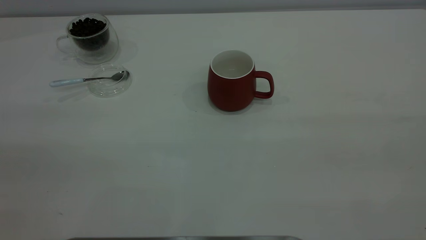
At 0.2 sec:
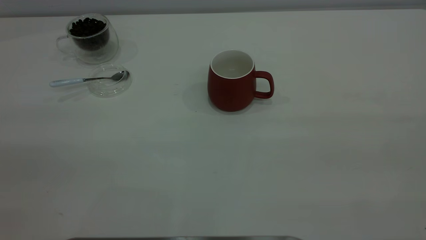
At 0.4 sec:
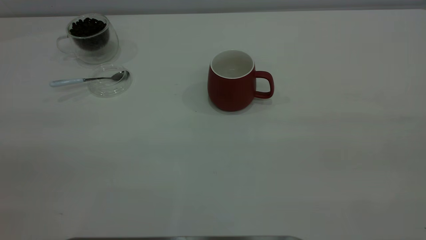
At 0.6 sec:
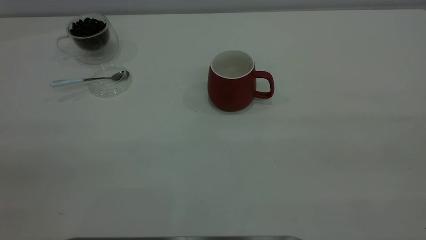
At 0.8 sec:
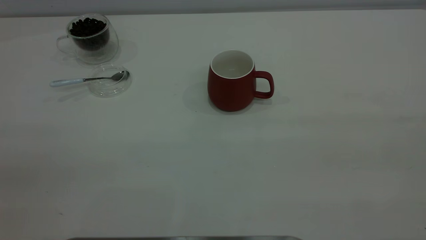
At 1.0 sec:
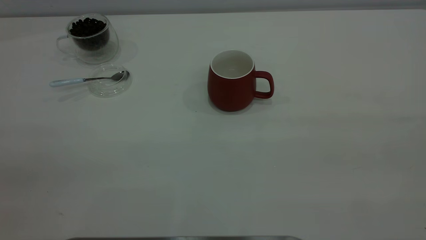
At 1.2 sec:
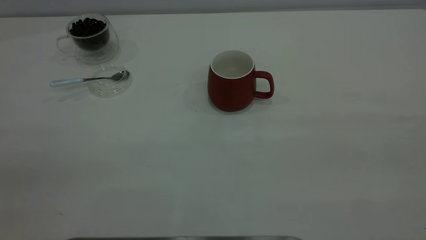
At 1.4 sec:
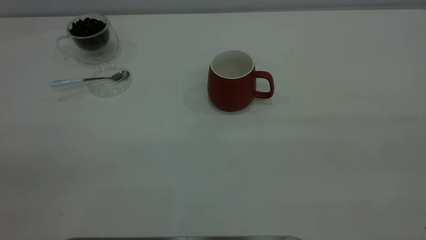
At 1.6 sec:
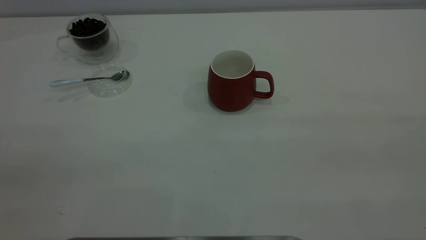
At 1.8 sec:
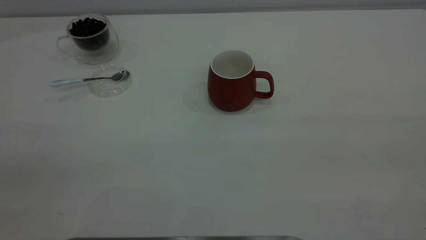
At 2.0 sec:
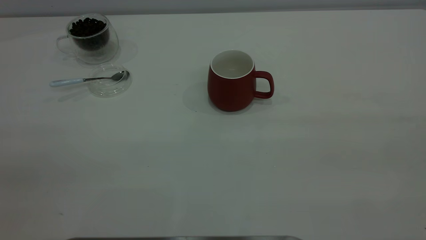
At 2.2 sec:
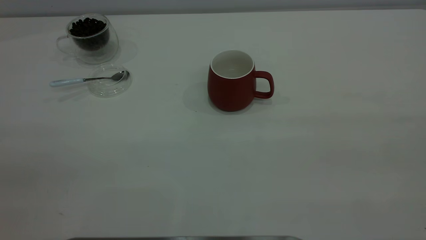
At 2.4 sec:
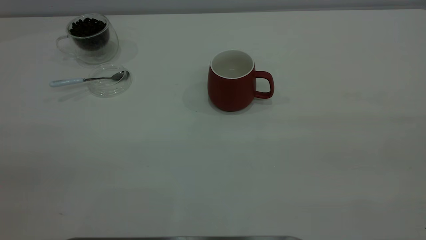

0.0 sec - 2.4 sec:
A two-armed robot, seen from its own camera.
Task of the whole recording: the right gripper place the red cup in the center of the table, the left gripper take the blue spoon from the cup lid and scoop out the coffee beans from the coffee cup and put them into the red cup, the left gripper put the spoon back into the cup lid.
1.2 sec - 2.4 sec: Both grippers stay about where they are.
